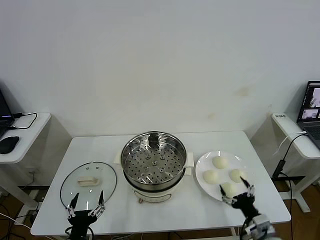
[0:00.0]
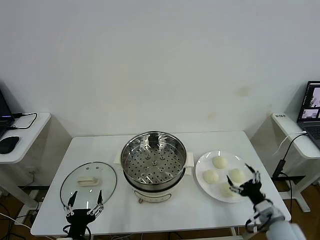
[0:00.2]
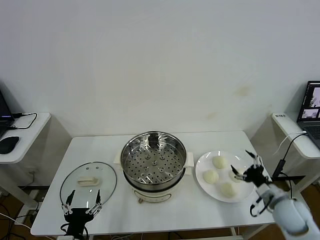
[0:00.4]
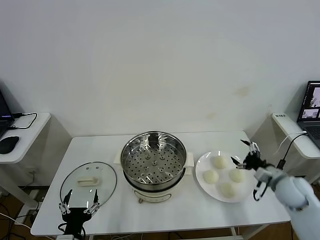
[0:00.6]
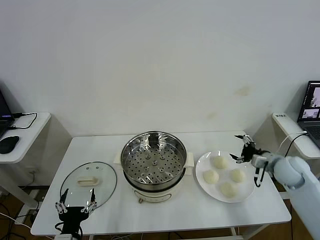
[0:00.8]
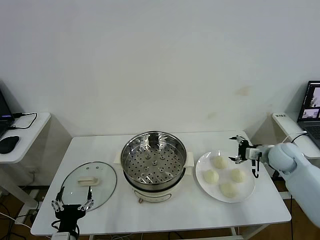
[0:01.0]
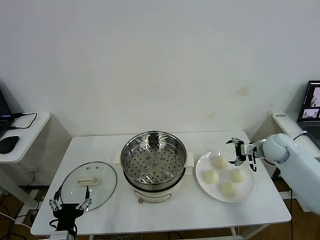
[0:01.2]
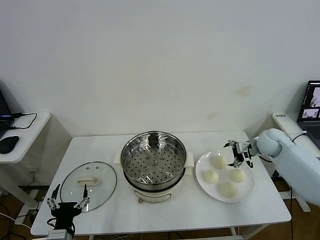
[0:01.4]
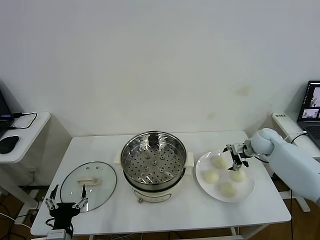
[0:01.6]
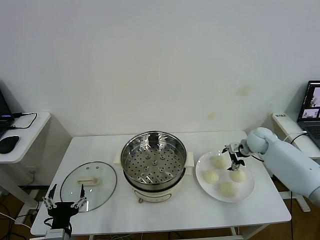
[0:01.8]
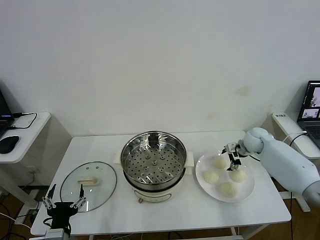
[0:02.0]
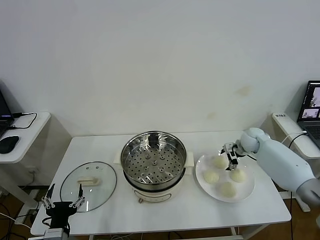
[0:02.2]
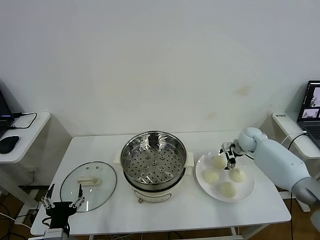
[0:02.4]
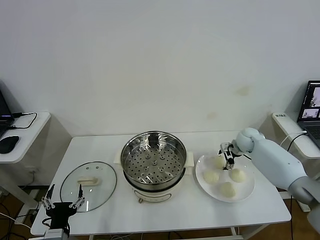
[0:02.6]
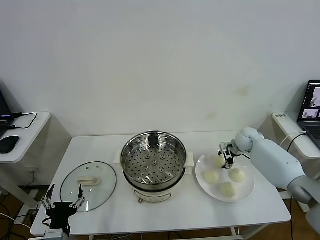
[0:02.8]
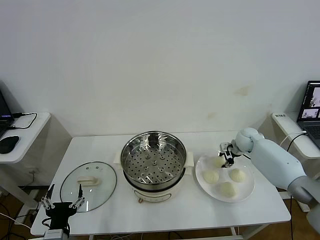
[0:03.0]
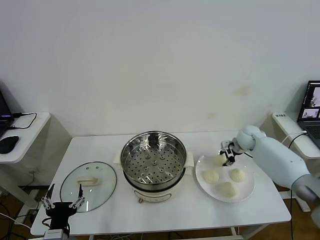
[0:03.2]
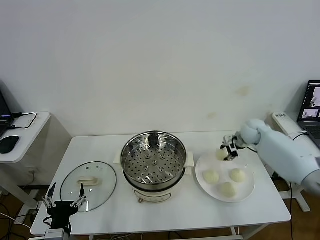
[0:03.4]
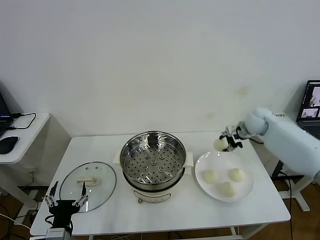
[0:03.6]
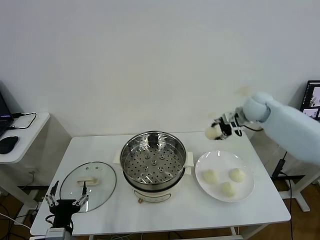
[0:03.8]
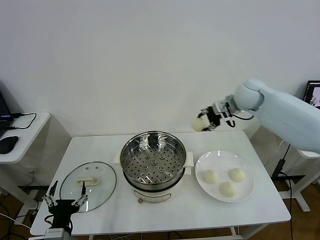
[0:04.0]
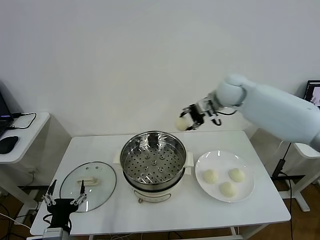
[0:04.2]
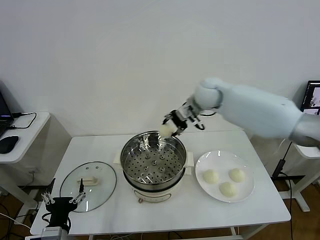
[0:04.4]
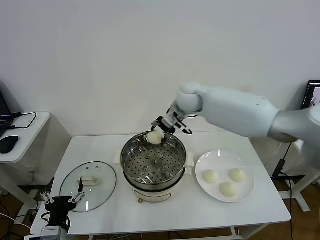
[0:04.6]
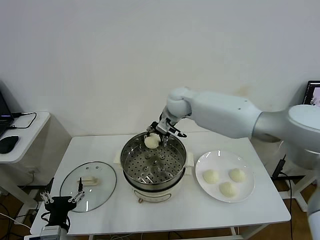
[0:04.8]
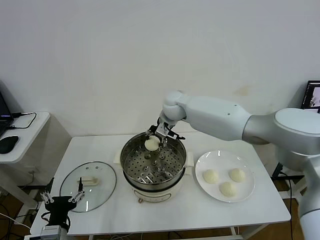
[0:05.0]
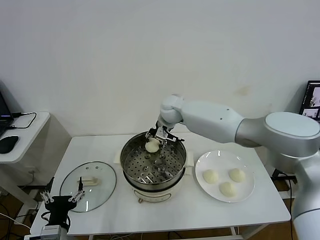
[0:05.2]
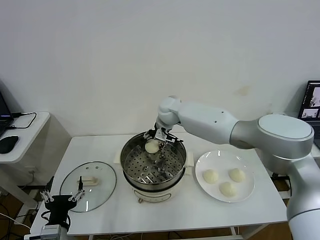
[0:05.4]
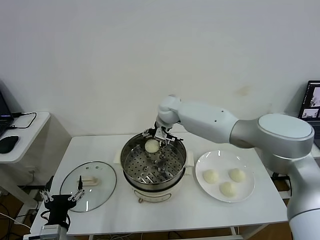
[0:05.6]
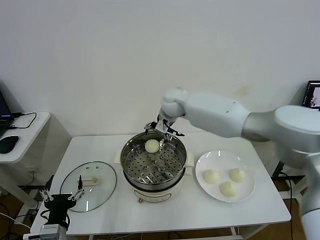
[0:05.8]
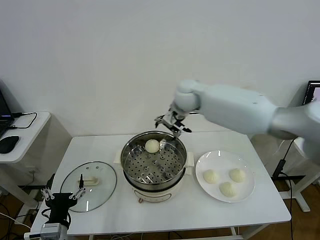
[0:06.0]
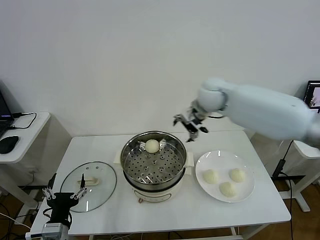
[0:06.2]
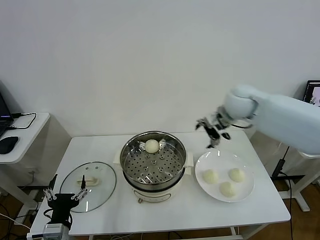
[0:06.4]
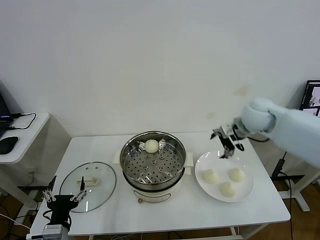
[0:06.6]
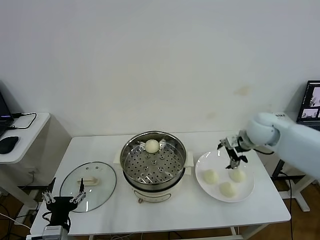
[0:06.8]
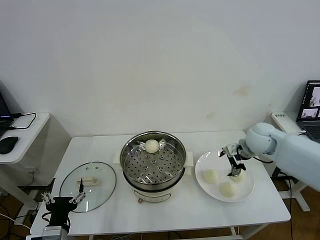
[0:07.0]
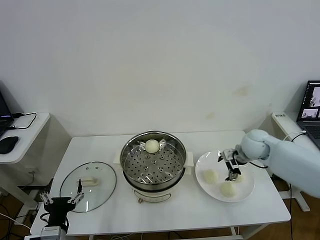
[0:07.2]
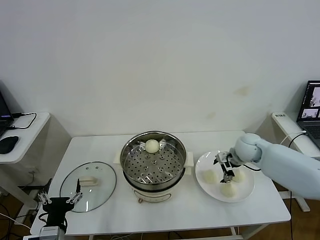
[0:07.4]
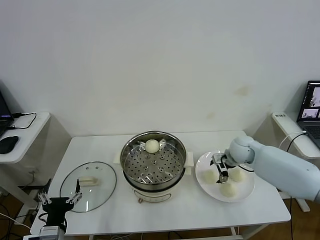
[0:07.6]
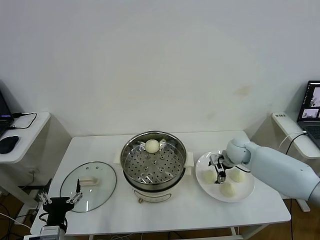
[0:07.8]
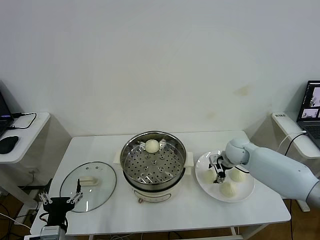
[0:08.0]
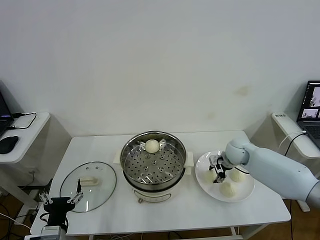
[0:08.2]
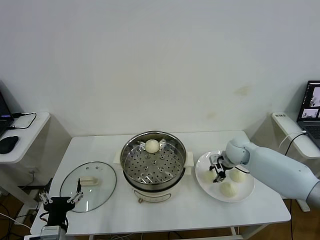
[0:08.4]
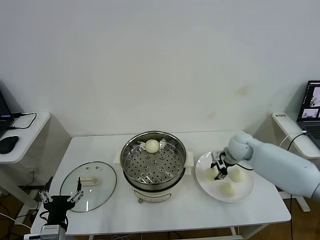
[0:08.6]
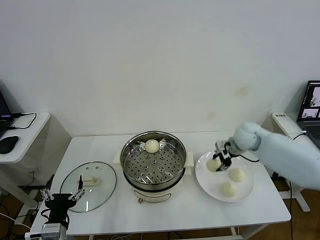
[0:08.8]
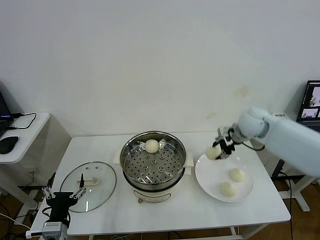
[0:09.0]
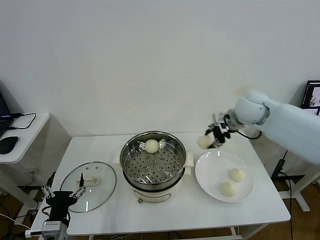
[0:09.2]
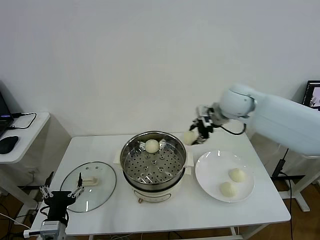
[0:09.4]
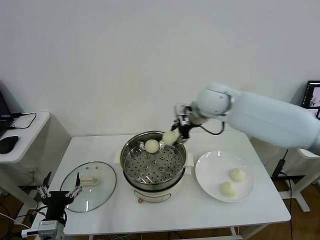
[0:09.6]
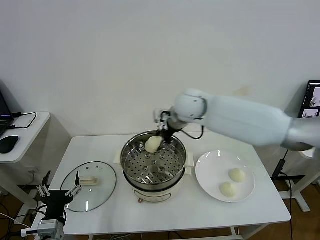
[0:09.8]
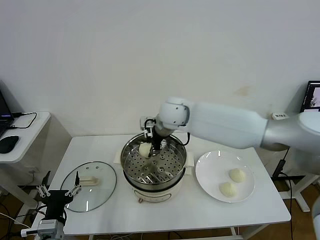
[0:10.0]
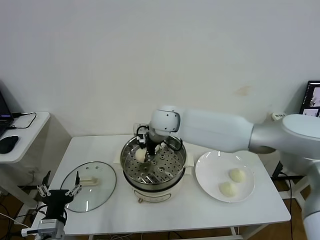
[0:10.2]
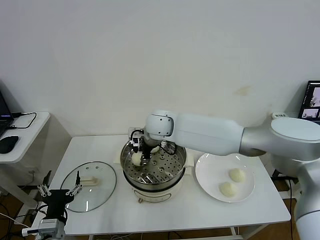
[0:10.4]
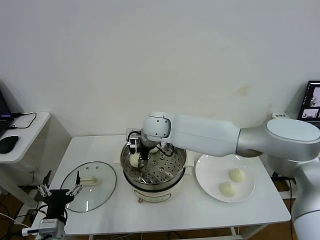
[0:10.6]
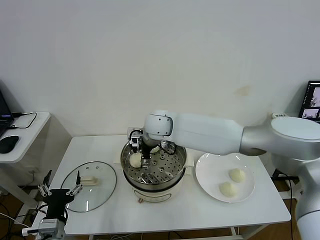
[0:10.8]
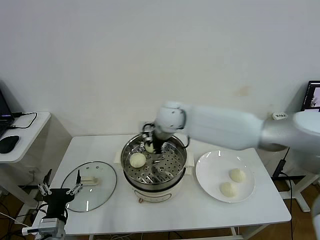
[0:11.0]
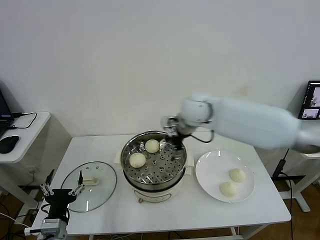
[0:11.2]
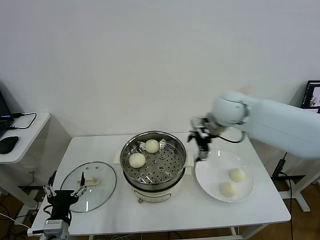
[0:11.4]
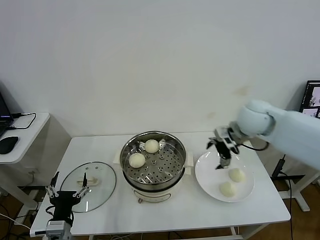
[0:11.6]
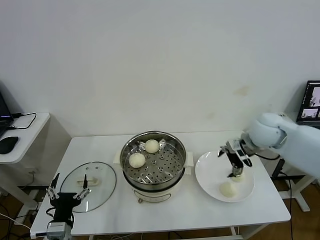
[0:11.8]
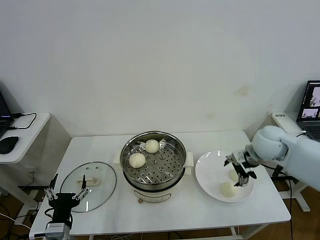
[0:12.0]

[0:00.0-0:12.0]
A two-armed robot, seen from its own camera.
Step, 0:00.0 to 0:02.8: Grasp the baozi in the plate with right gripper.
Step, 0:03.0 to 0:05.4: Place the baozi on the steamer with right gripper.
Step, 0:05.6 to 0:08.2: Grasp the baozi in the plate with right gripper.
Step, 0:08.4 to 0:10.6: Place the baozi on the steamer with right gripper.
0:01.6 to 0:03.0: The right gripper shifts by roughly 5 cm, and closes.
0:03.0 to 0:04.4: The right gripper is displaced to the left and upward by about 30 cm.
0:04.4 to 0:06.0: The right gripper reaches about 10 cm to the left, then returns, and opens its fingers.
0:06.0 to 0:07.6: The right gripper is displaced downward and to the right by approximately 25 cm.
0:07.6 to 0:09.0: The right gripper moves upward, approximately 15 cm, and closes.
0:09.0 to 0:10.4: The right gripper travels to the left by about 30 cm.
0:10.4 to 0:12.0: The right gripper shifts some 35 cm to the right, and opens.

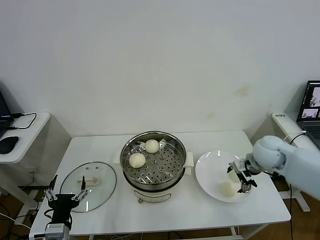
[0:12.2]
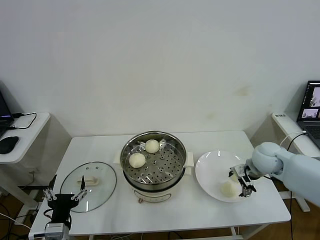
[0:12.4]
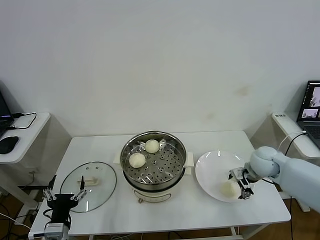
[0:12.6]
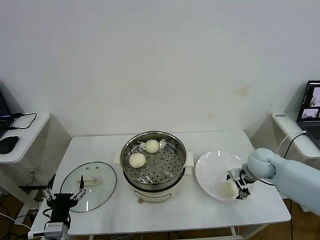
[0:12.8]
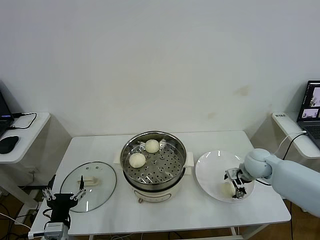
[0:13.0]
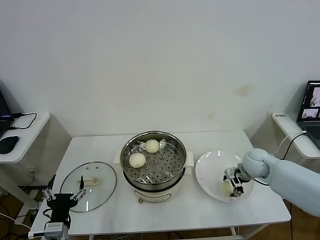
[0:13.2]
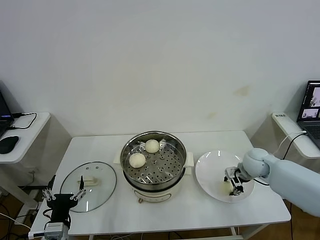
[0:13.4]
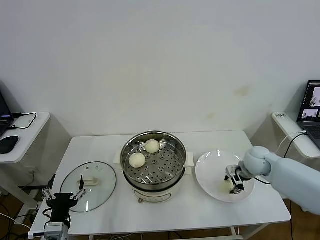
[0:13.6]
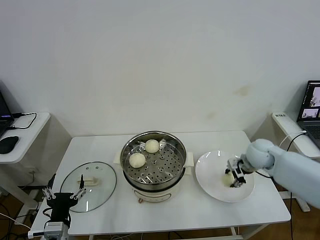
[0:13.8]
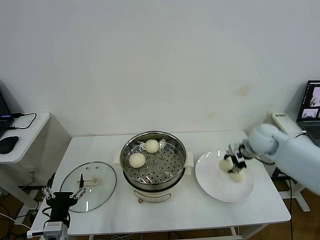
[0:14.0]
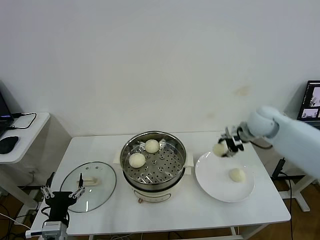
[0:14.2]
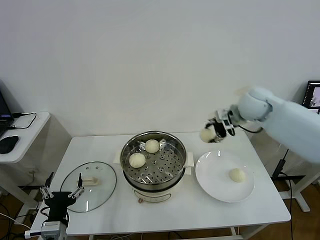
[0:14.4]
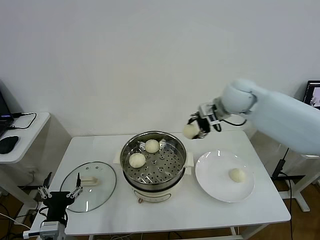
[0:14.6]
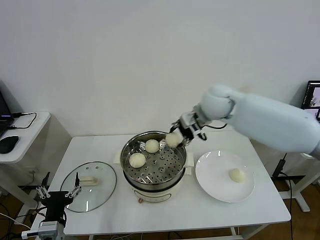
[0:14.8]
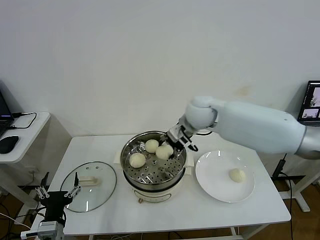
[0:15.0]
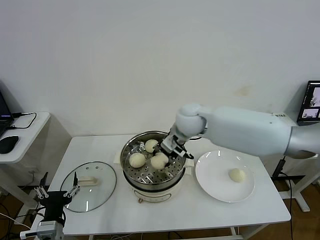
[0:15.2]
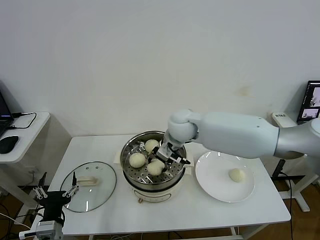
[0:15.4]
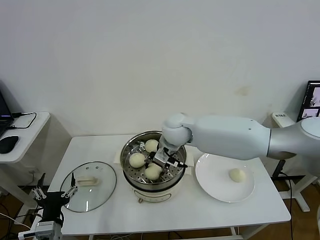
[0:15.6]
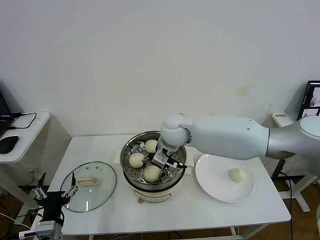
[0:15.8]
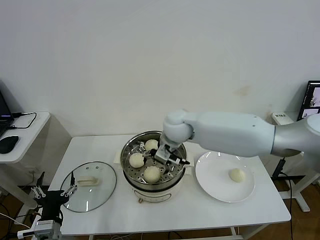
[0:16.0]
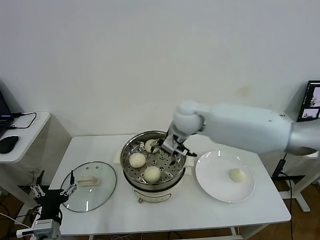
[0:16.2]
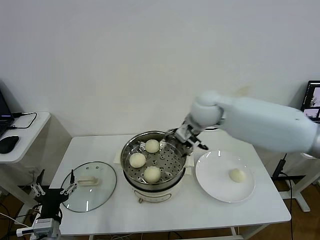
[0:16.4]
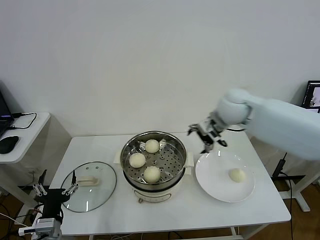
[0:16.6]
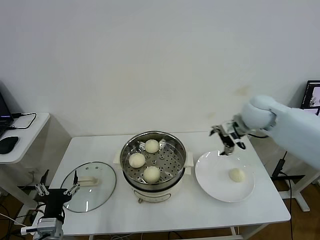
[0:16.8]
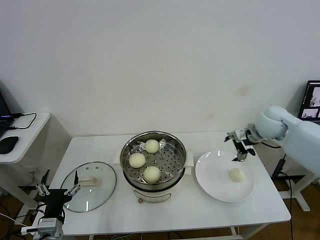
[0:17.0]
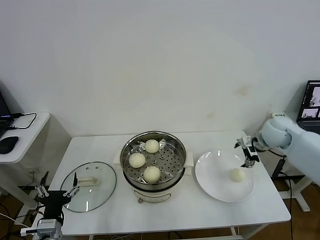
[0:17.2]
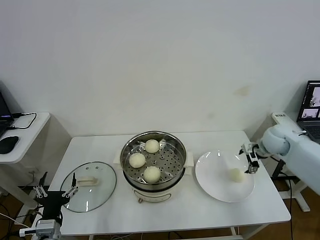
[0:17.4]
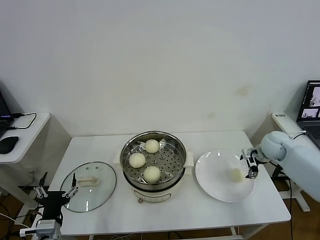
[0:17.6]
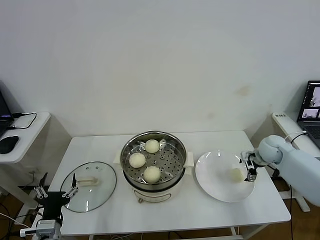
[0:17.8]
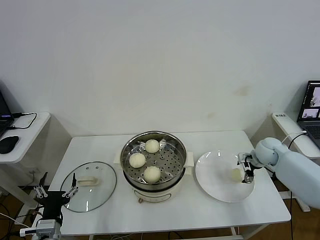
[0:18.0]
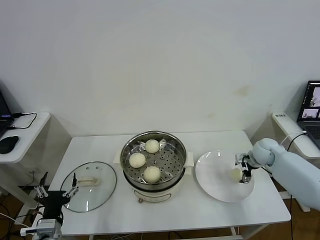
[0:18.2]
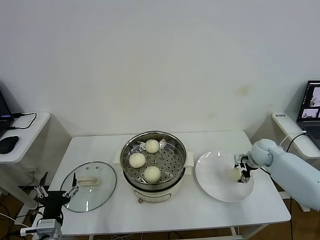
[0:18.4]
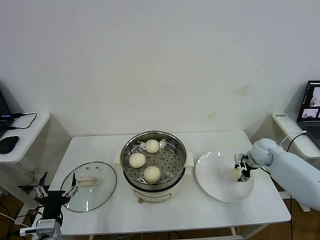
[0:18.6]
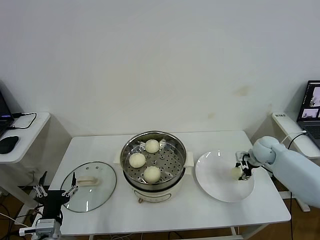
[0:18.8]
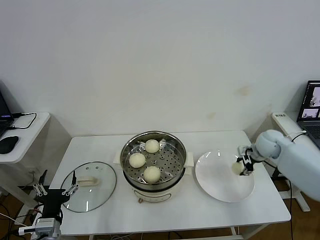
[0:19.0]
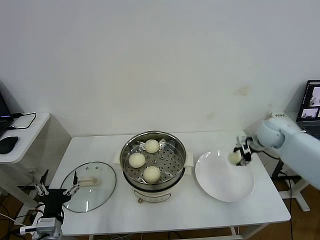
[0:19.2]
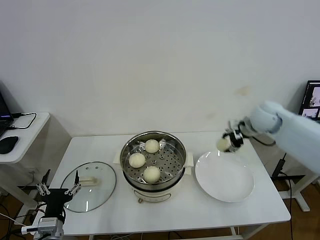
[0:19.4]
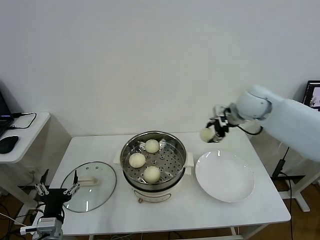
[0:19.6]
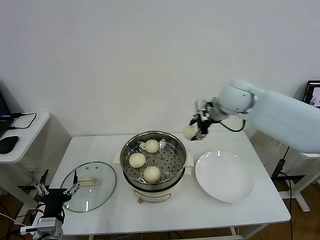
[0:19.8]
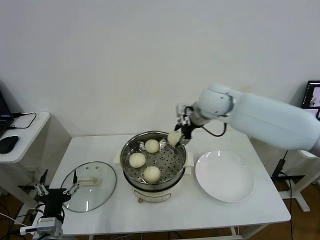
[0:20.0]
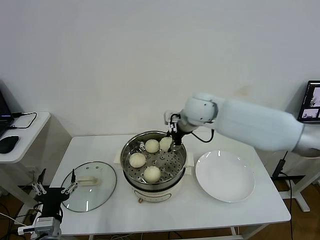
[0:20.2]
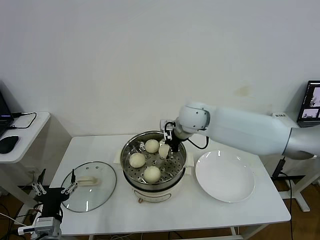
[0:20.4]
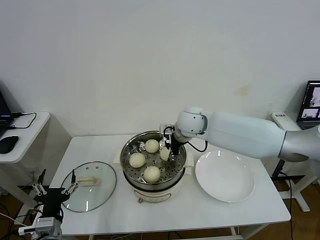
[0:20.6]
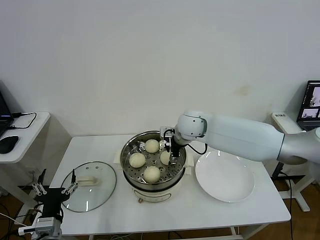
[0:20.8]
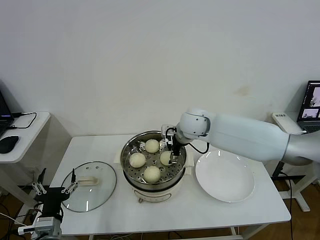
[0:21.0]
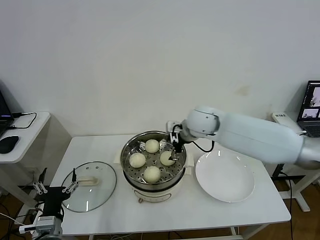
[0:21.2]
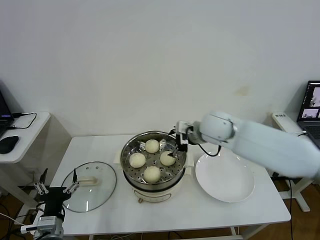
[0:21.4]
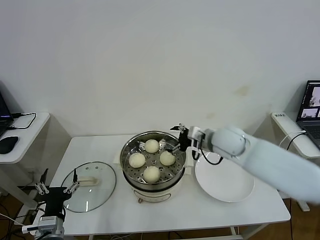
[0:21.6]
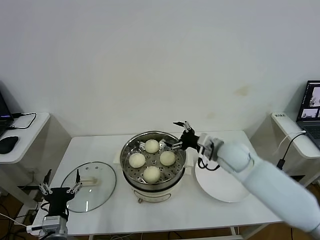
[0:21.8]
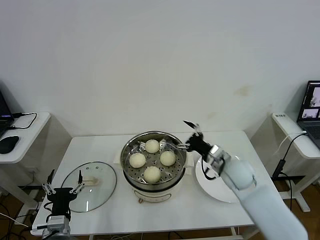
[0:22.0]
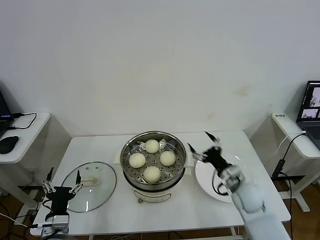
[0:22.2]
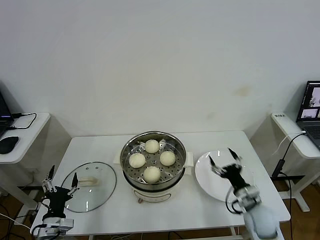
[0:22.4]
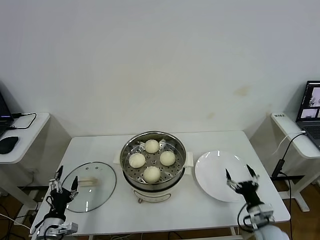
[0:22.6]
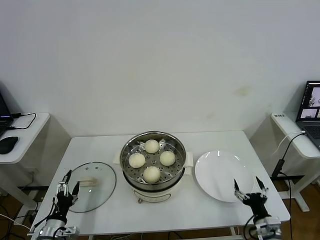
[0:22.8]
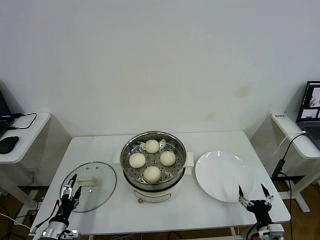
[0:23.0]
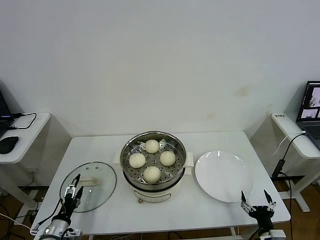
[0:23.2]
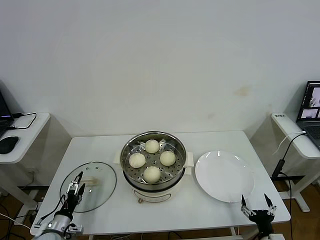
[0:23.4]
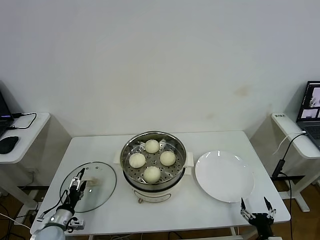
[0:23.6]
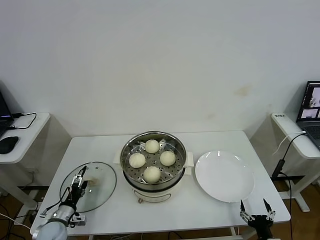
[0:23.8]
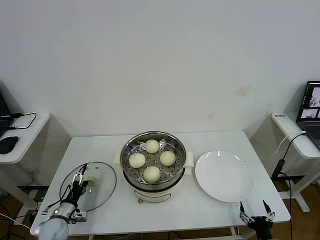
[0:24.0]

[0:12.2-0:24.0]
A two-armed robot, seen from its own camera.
Step, 0:13.4 to 0:15.8: Place the baozi on the steamer with right gripper.
Step, 0:16.0 to 0:18.6: Grasp the baozi in the plate with right gripper.
Step, 0:18.8 to 0:20.8: Place the baozi on the steamer with right gripper.
0:12.2 to 0:13.6: The right gripper is displaced downward by roughly 5 cm, and closes up.
0:13.6 to 0:15.2: The right gripper travels to the left and upward by approximately 30 cm.
0:15.2 to 0:16.6: The right gripper shifts about 15 cm to the right, and opens its fingers.
0:16.6 to 0:18.2: The right gripper shifts about 25 cm downward and to the right.
0:18.2 to 0:19.6: The right gripper goes approximately 25 cm upward and to the left, and closes its fingers.
0:19.6 to 0:21.0: The right gripper shifts approximately 15 cm to the left and downward, and opens its fingers.
0:21.0 to 0:22.6: The right gripper moves backward, downward and to the right, roughly 50 cm; the left gripper goes about 10 cm downward and to the left.
0:22.6 to 0:24.0: The left gripper goes roughly 10 cm forward and downward, while the right gripper goes about 10 cm backward.
